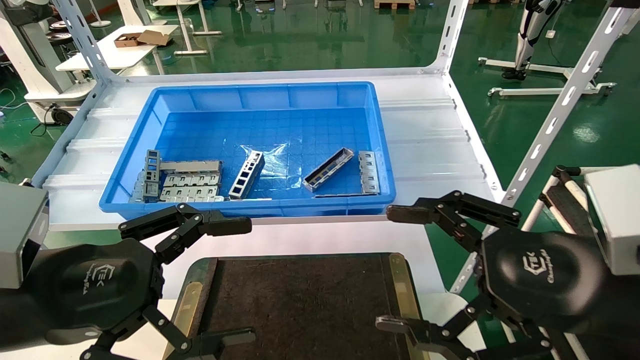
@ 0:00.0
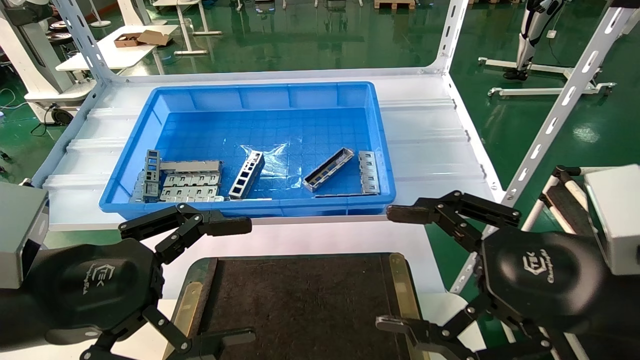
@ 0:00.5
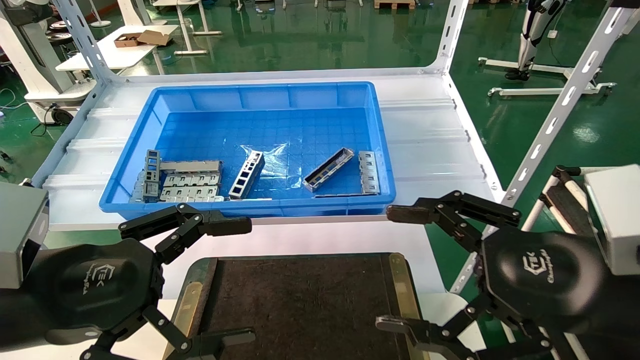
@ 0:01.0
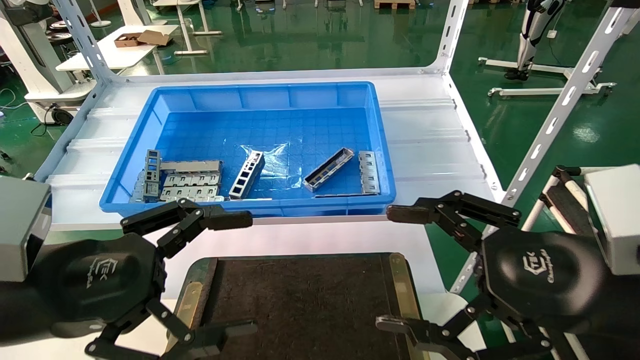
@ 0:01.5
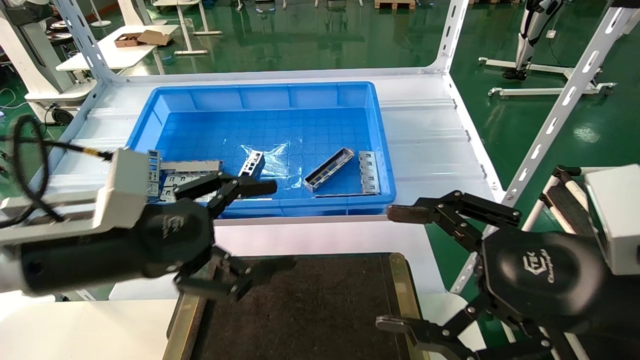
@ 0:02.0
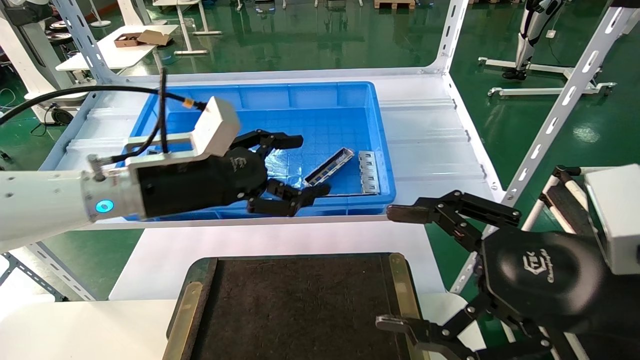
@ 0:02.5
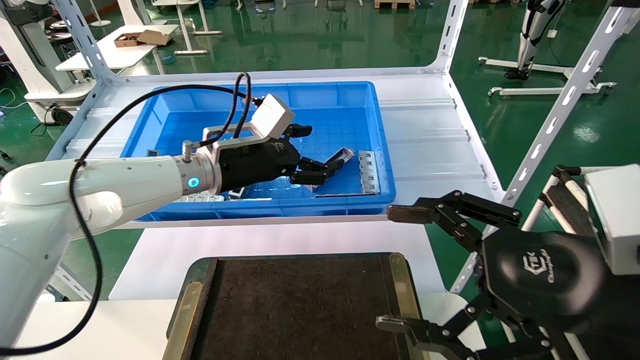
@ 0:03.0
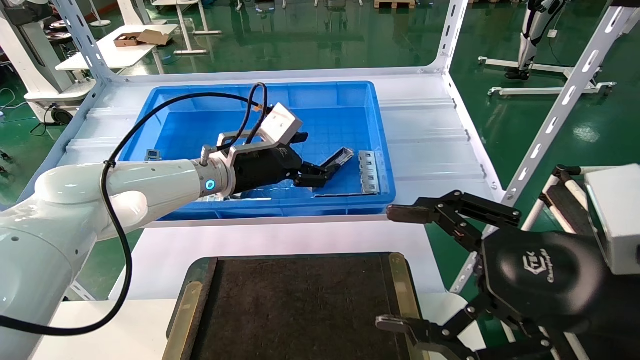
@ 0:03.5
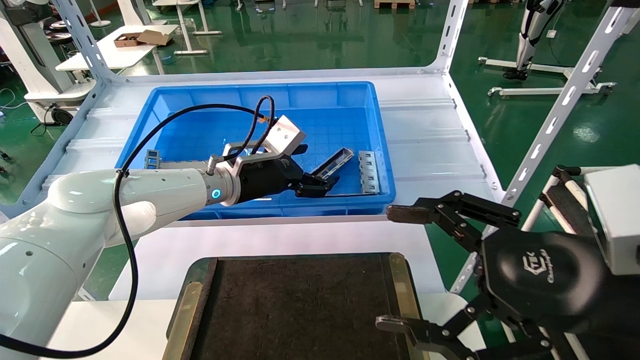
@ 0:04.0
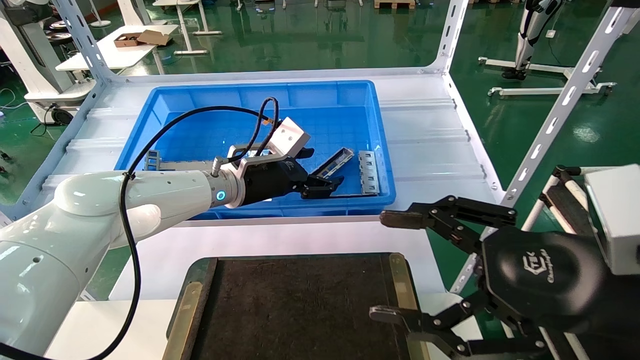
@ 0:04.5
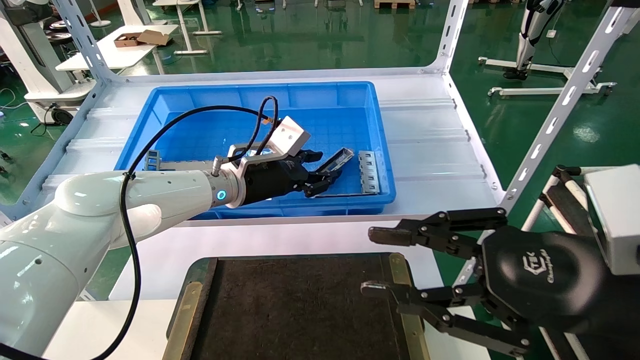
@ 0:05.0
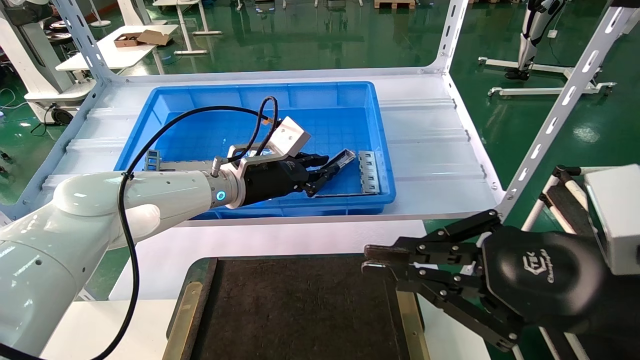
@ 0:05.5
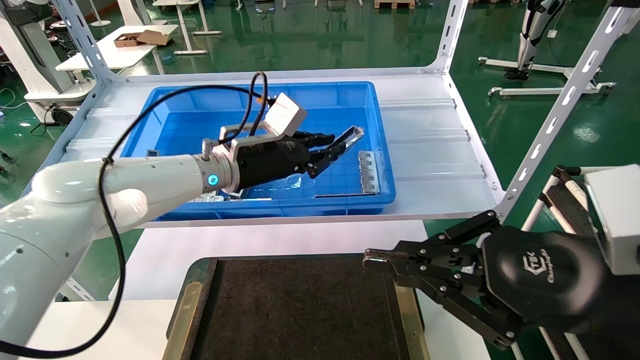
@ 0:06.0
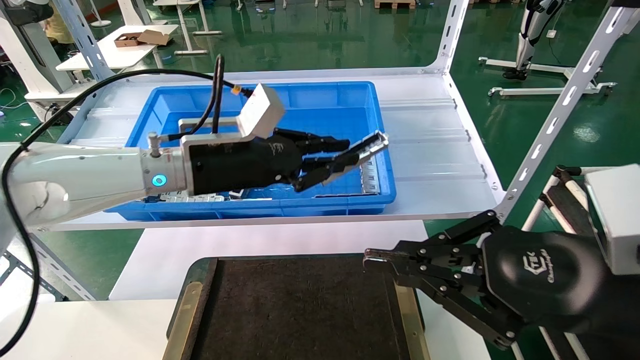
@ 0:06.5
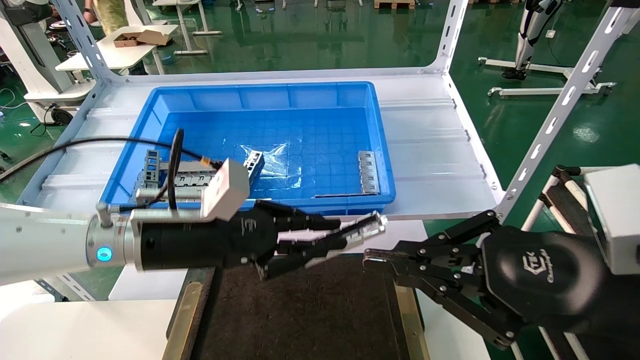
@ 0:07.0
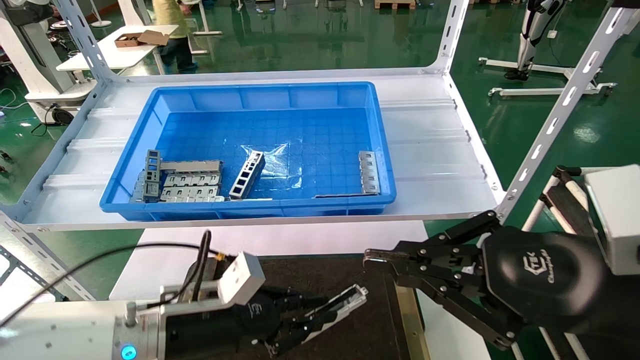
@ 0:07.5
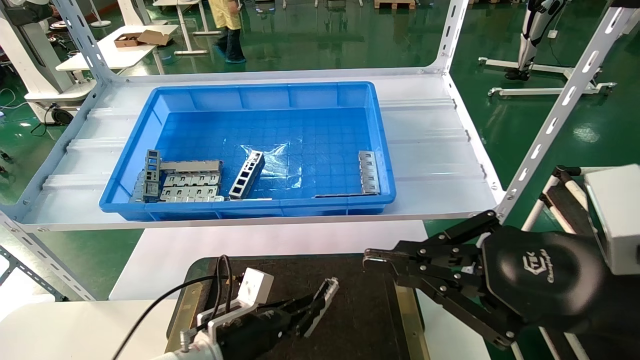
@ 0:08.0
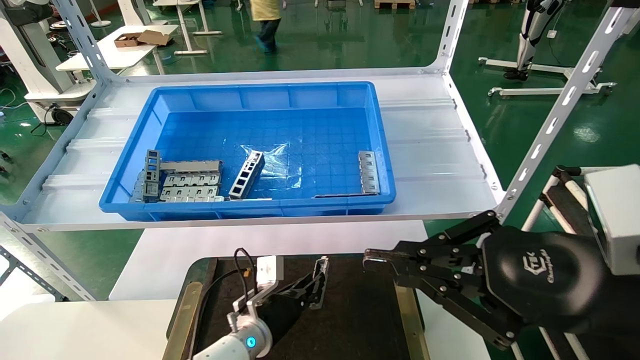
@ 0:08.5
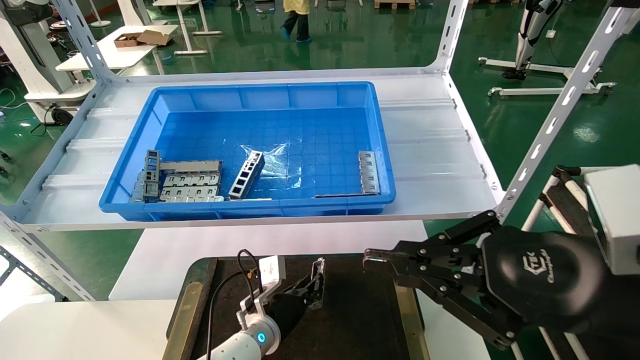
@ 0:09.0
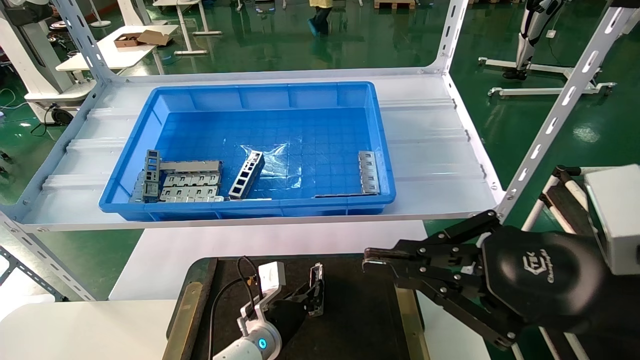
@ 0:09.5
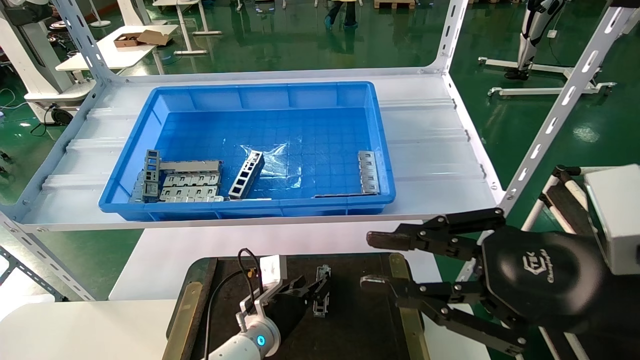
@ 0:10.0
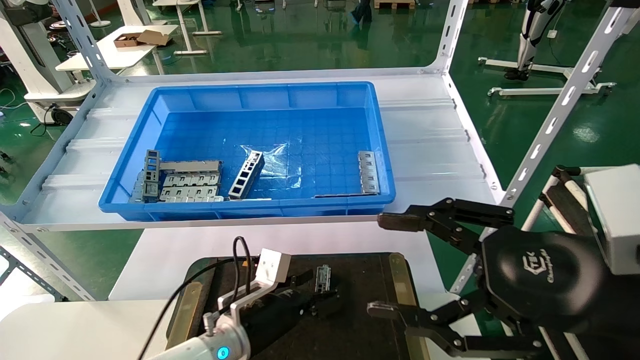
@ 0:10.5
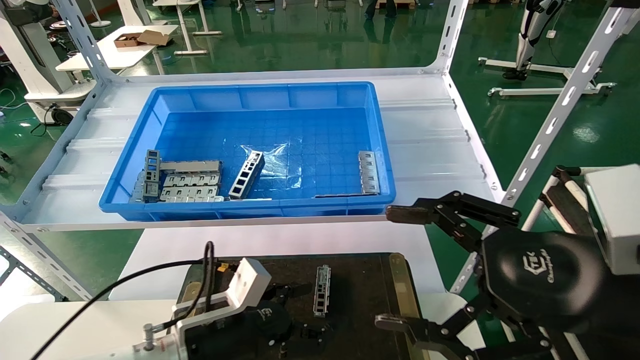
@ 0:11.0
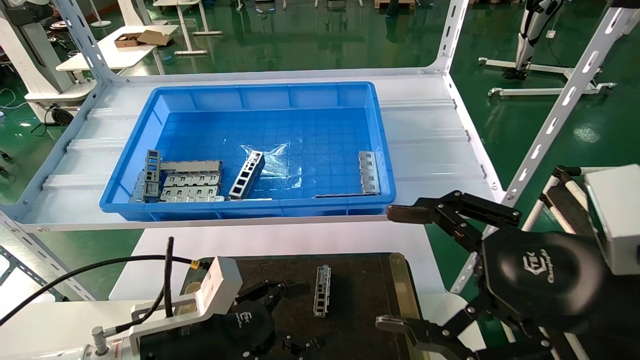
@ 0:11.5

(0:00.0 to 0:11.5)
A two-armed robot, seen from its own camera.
Task of the whole recording: Grasp the part with one hand and place it on the black container.
Step, 0:01.5 - 0:05.0: Pick up the front USB bracket from the feeding area.
Step, 0:05.5 - 0:09.5: Place the front USB bracket into the box.
0:00.0 - 0:02.0: The left gripper shifts some 5 cm forward.
0:02.0 - 0:04.0: The left gripper shifts some 25 cm forward and to the right.
0:04.0 - 0:06.0: The left gripper closes its fingers. Meanwhile the right gripper closes its fingers.
0:06.0 - 0:07.5: The left gripper travels downward and backward by about 20 cm.
0:07.5 - 0:09.5: The left gripper travels downward, forward and to the right by some 20 cm.
0:09.5 - 0:11.5: The right gripper opens up, while the left gripper moves backward, upward and to the left, some 20 cm, and opens.
